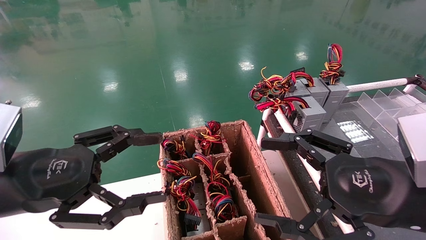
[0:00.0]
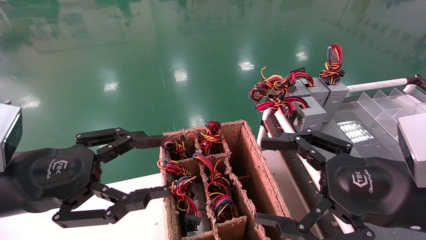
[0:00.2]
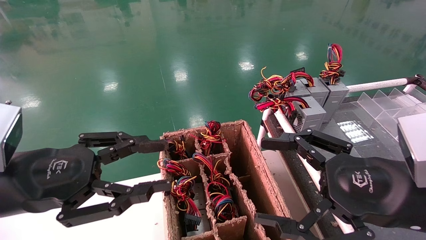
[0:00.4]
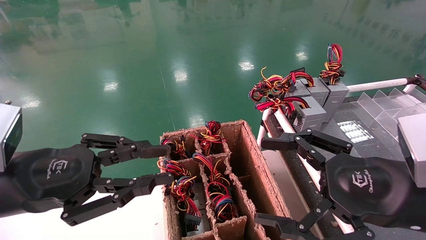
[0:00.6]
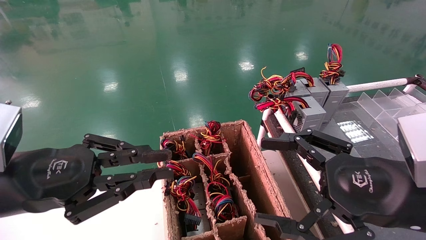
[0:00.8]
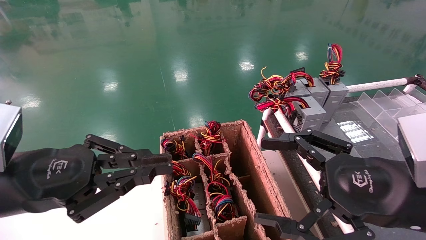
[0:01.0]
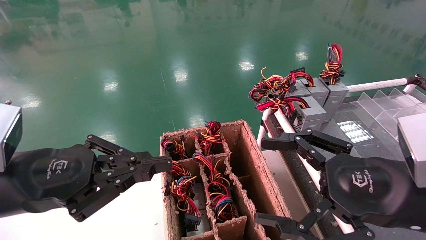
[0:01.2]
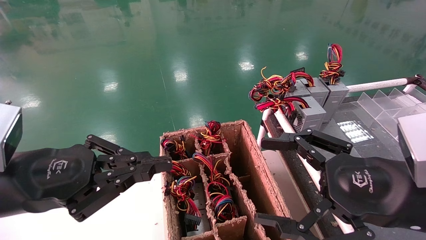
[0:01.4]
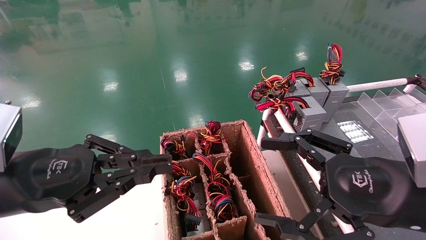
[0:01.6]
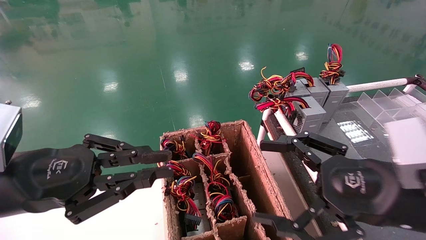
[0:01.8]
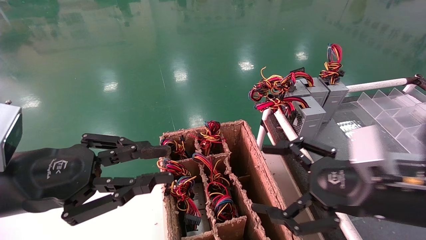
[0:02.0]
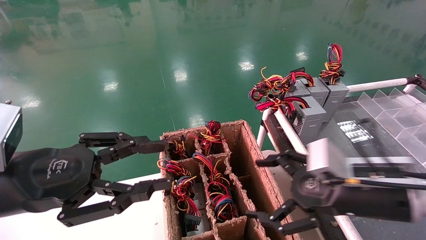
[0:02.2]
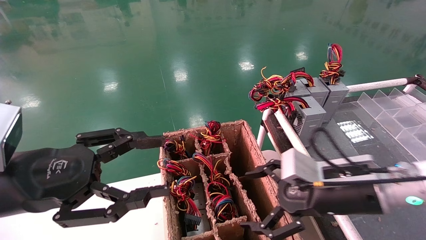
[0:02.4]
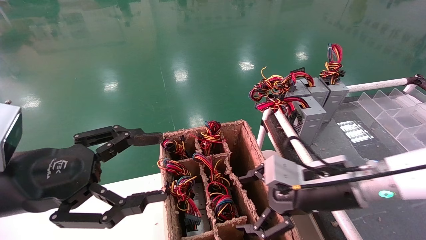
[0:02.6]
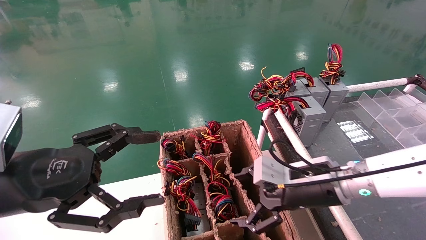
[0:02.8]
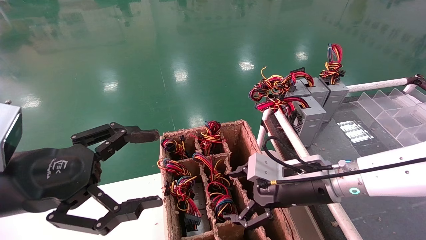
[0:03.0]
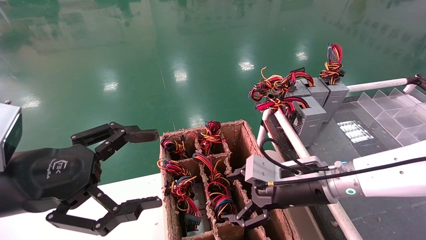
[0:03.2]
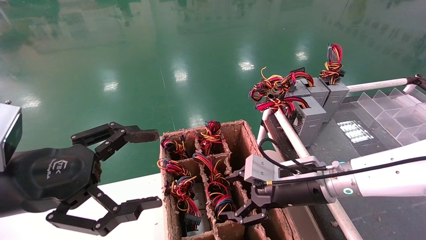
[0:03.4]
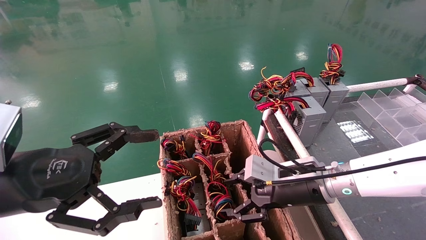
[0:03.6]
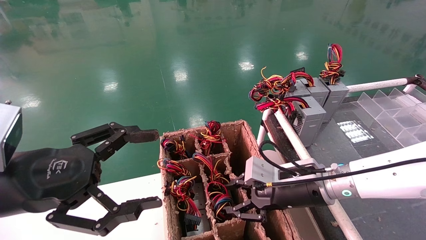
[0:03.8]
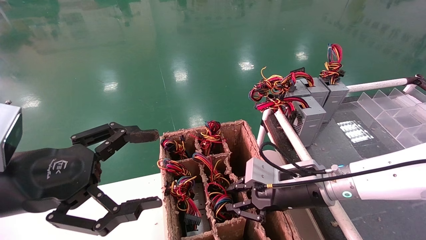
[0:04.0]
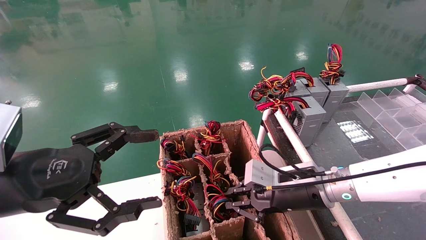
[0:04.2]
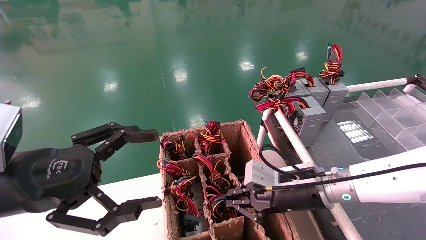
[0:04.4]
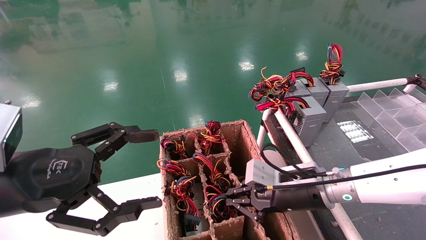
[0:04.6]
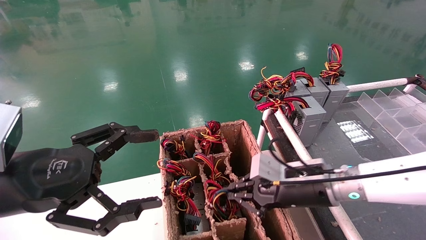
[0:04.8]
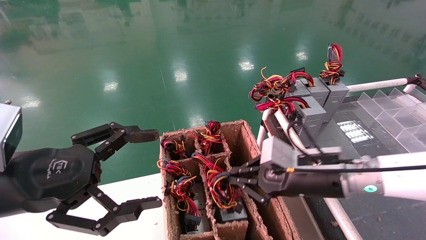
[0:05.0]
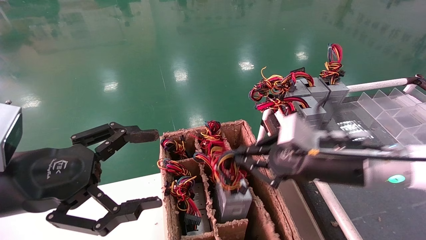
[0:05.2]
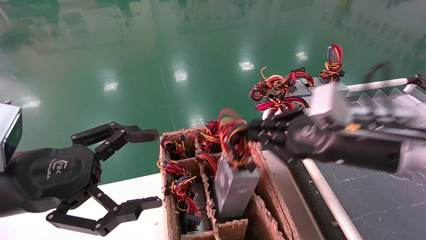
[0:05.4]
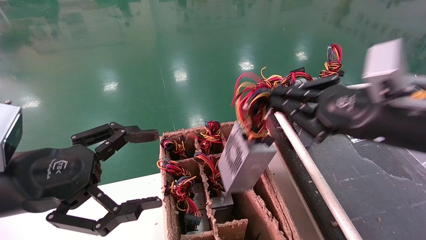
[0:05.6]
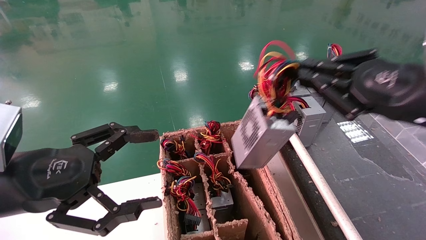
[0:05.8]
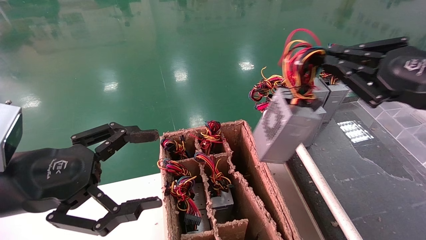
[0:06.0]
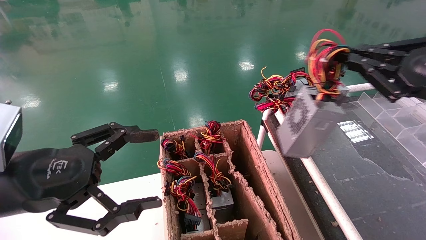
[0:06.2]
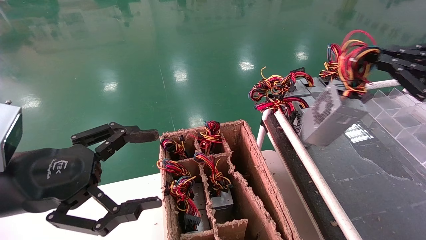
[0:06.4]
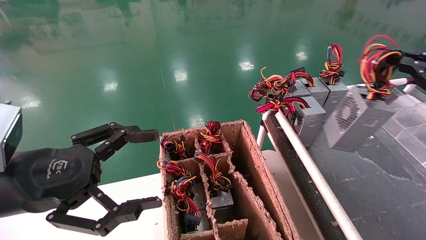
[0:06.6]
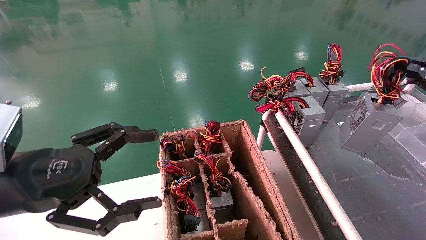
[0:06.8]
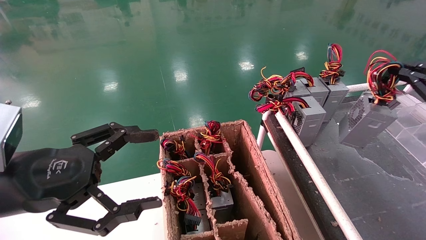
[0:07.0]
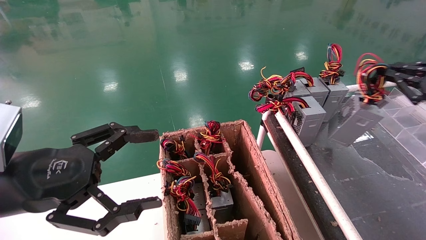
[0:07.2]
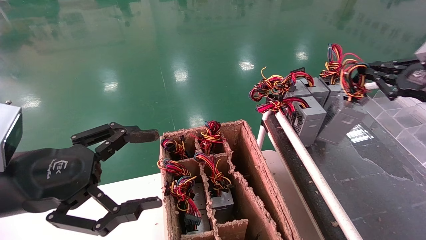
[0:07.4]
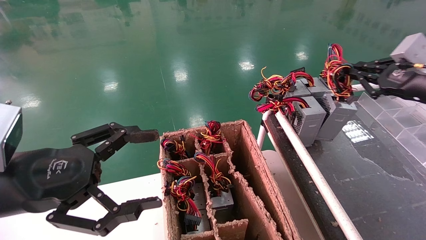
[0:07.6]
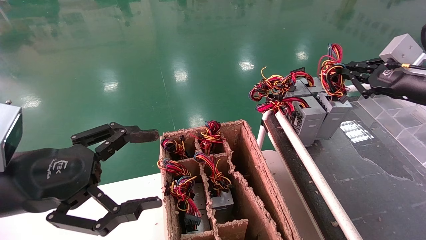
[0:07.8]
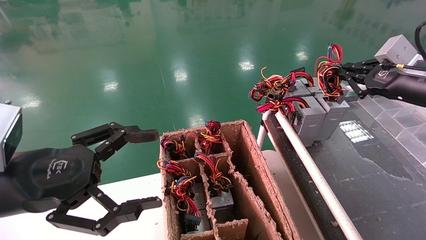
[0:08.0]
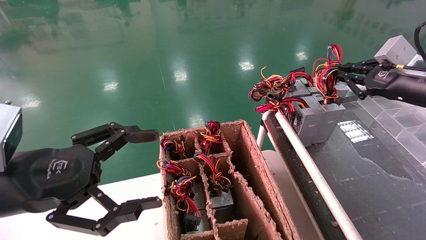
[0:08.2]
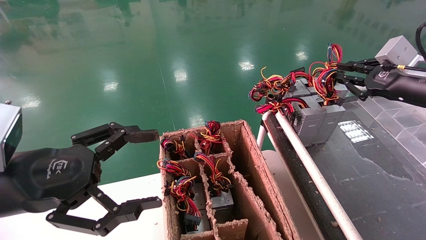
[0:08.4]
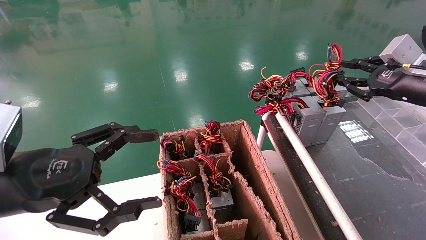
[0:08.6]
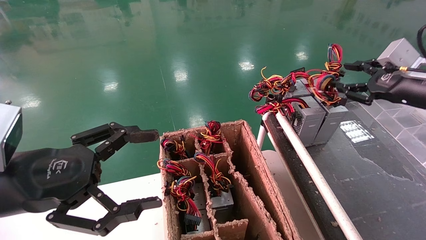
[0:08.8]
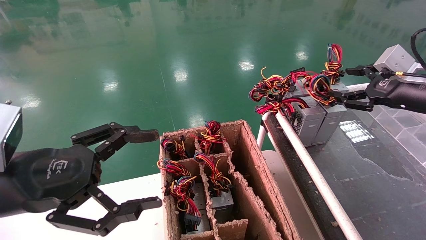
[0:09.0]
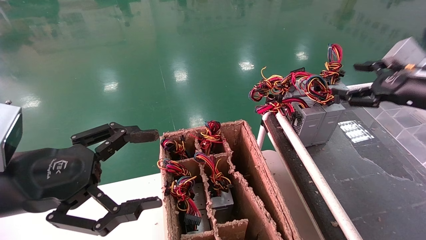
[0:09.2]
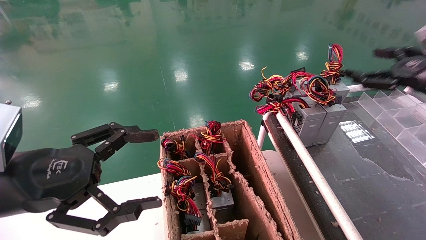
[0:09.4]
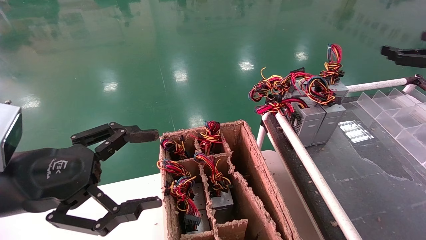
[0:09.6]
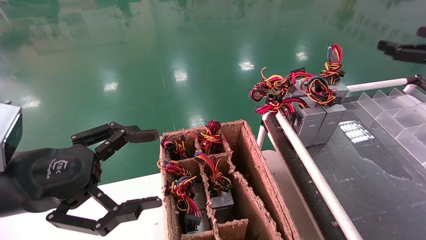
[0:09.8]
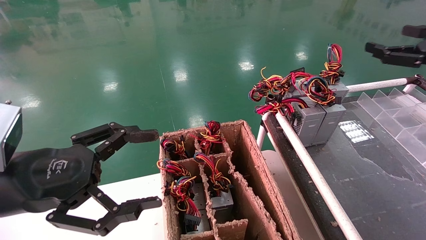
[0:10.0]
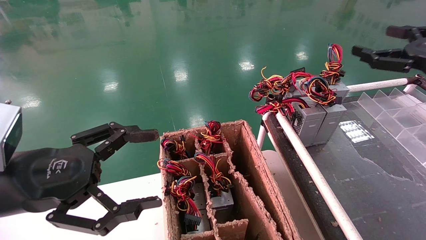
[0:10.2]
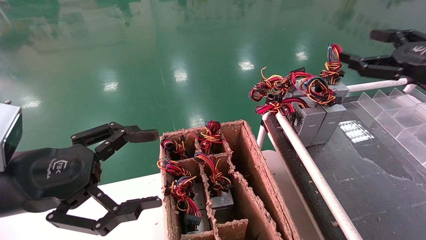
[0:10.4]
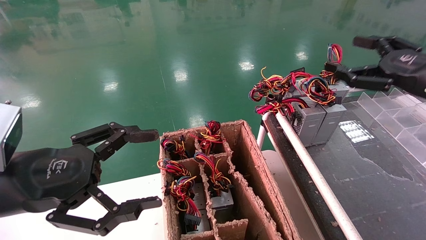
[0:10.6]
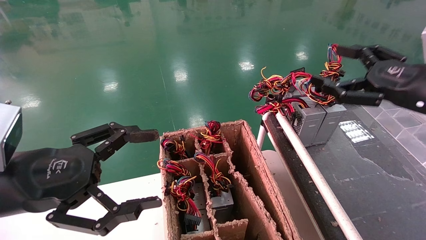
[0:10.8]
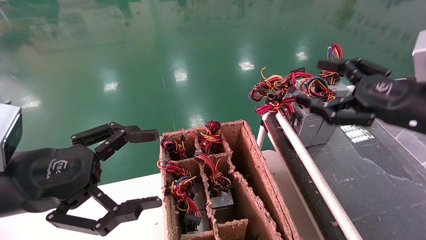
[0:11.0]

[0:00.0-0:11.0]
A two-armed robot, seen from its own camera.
Step, 0:00.6 to 0:04.4: Grab and lift the power supply from the large box.
Step, 0:04.6 to 0:08.4: Place the power supply on the operating table.
0:00.0 to 0:01.6: The left gripper closes up.
0:01.6 to 0:03.2: The right gripper is displaced forward, to the left and downward by about 15 cm. Meanwhile the left gripper opens its fingers.
0:03.2 to 0:04.8: The right gripper closes up.
0:04.8 to 0:06.2: The right gripper shifts roughly 25 cm to the right, upward and backward.
0:06.2 to 0:07.8: The right gripper shifts about 10 cm forward.
0:07.8 to 0:09.4: The right gripper opens its fingers.
0:09.4 to 0:11.0: The right gripper travels to the left and backward by about 15 cm.
